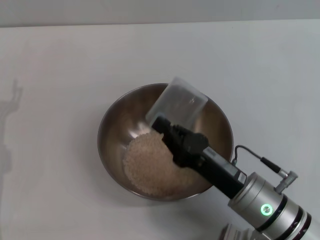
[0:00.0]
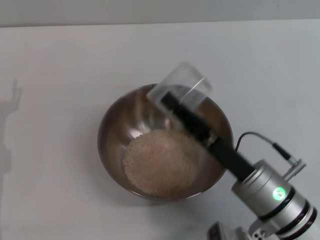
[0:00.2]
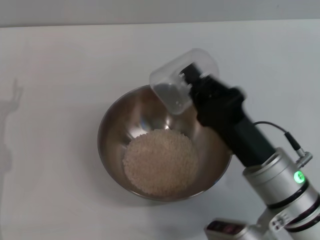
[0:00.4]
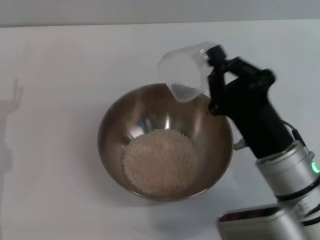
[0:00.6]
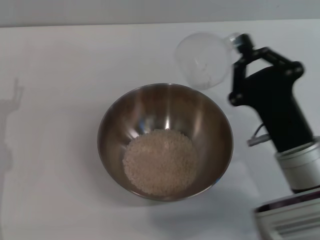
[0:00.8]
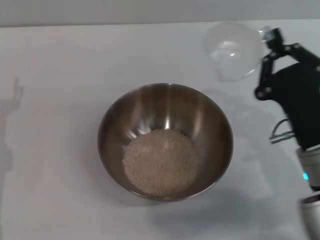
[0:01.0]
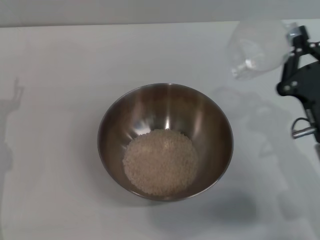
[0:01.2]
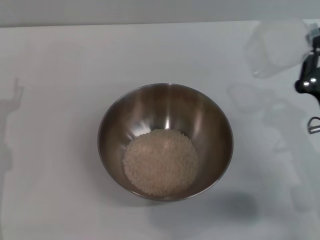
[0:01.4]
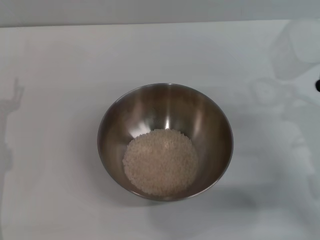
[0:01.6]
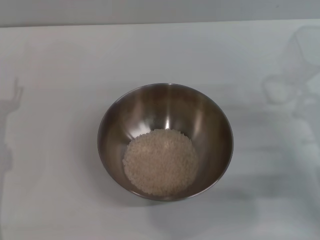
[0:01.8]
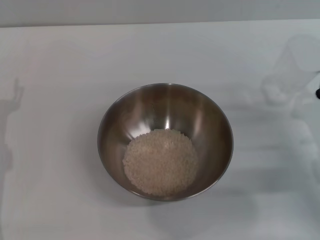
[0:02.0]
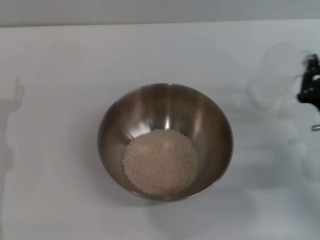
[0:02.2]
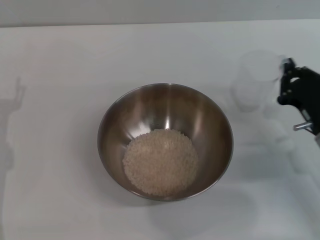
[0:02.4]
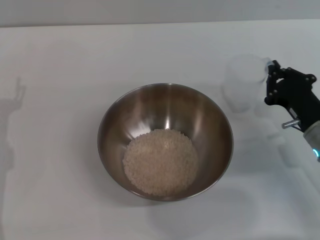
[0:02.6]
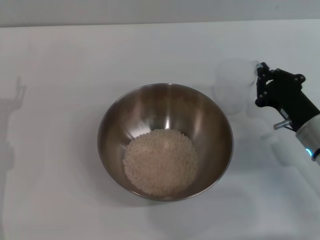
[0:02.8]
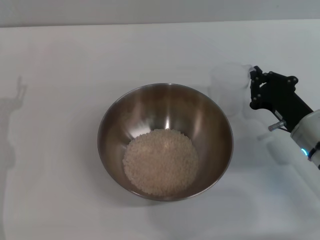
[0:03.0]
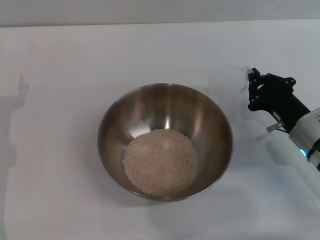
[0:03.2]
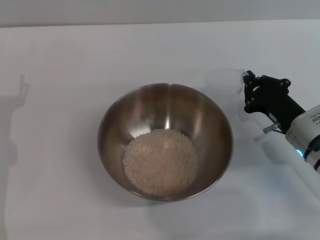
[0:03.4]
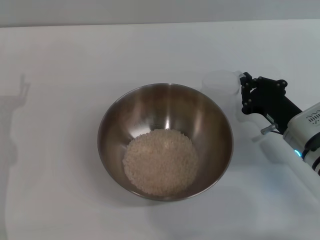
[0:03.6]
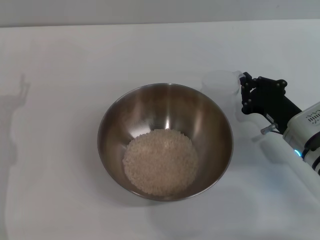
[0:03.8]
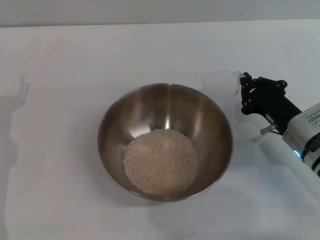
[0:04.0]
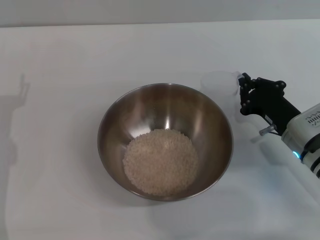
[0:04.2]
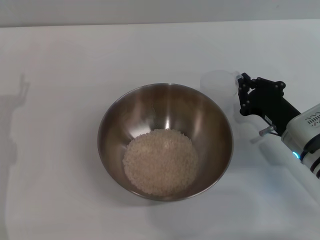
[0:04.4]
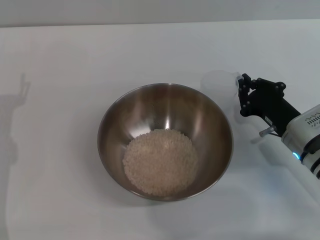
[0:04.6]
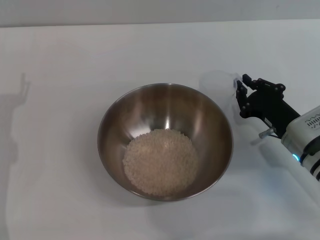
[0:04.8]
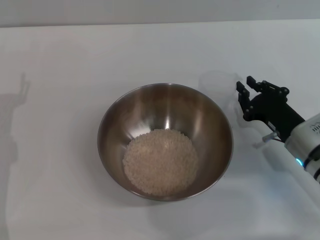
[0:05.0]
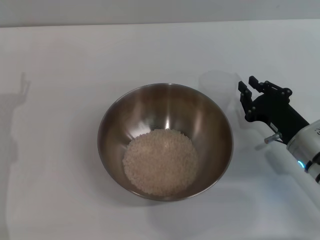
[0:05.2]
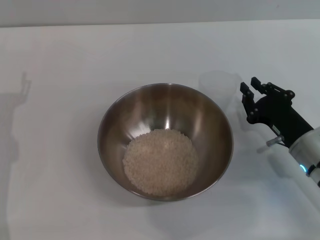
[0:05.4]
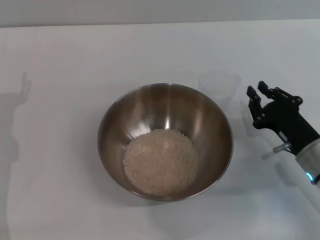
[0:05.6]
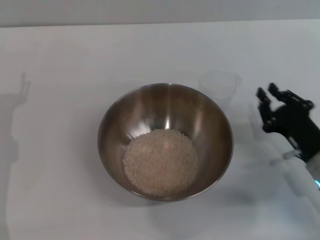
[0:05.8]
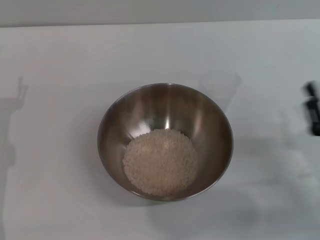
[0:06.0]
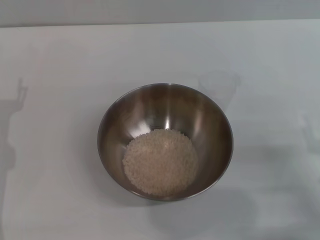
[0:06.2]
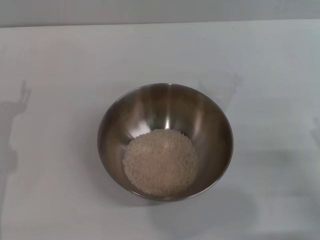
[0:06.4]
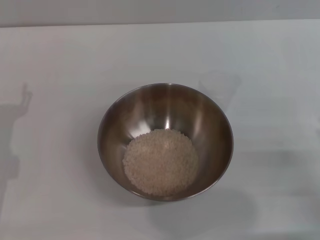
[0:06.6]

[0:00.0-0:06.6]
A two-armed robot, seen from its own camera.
Task of the whole recording: Place the bowl in the middle of the table with one hand and pour the rice from the grain cup into it with the other hand.
Step, 0:00.0 to 0:05.2: Place the cup on the table with the right gripper.
0:00.0 to 0:01.6: The right gripper moves to the right, roughly 15 cm.
0:01.6 to 0:03.2: The right gripper shifts approximately 5 cm forward.
0:03.2 to 0:05.0: The two grippers keep their place.
0:05.0 to 0:06.6: The right gripper heads backward and to the right, covering some 15 cm, and opens up.
